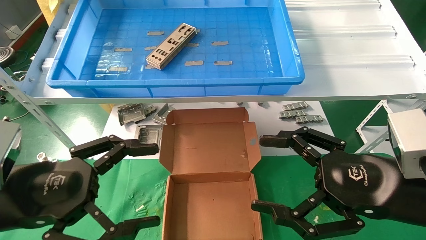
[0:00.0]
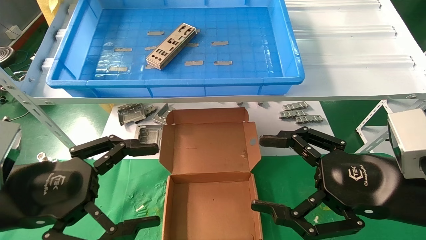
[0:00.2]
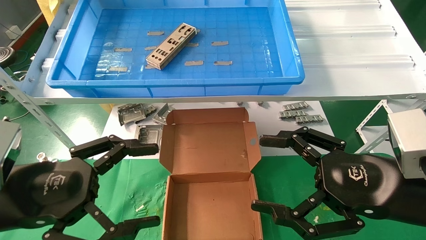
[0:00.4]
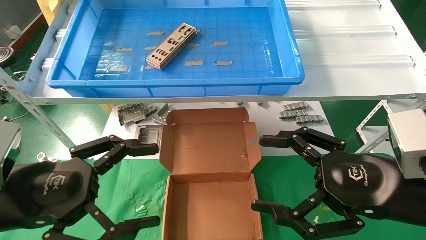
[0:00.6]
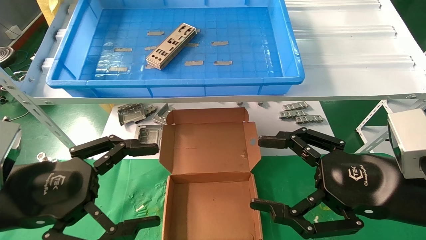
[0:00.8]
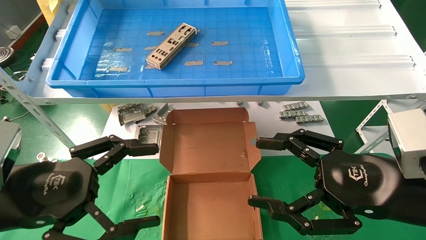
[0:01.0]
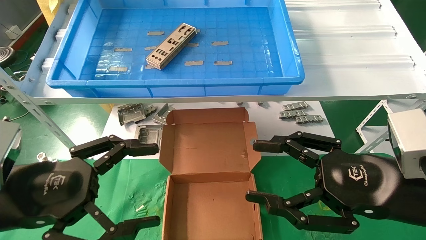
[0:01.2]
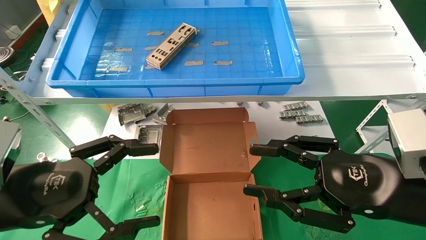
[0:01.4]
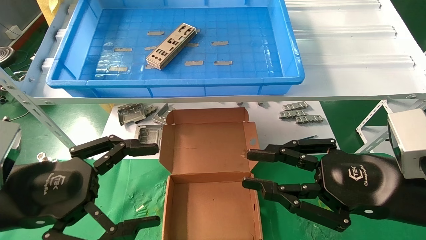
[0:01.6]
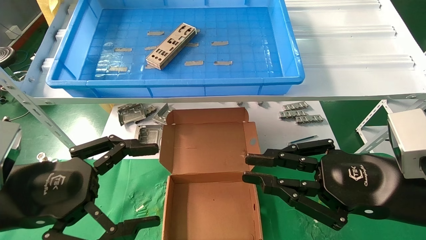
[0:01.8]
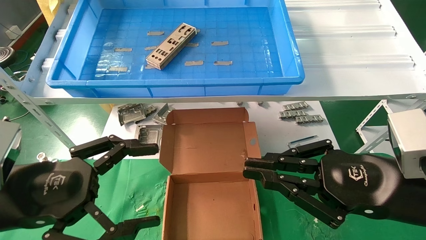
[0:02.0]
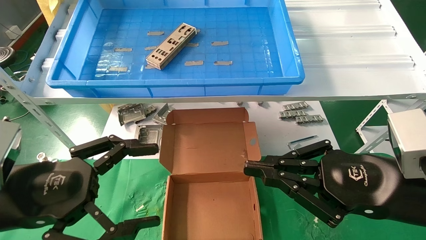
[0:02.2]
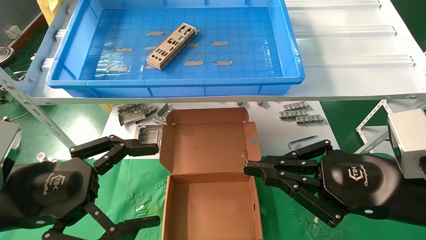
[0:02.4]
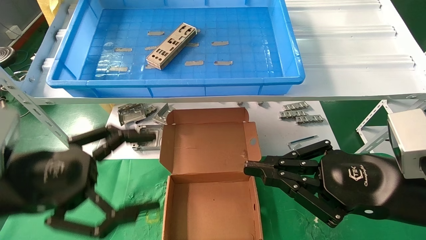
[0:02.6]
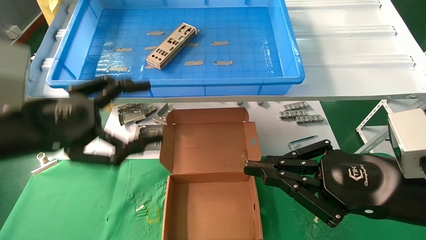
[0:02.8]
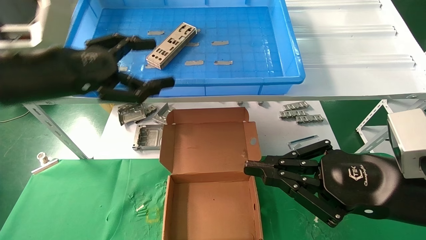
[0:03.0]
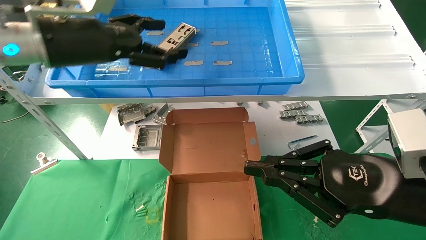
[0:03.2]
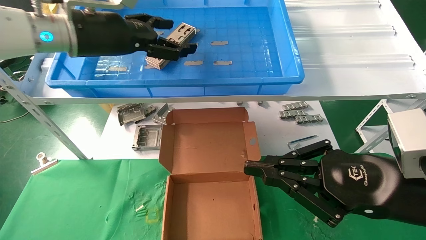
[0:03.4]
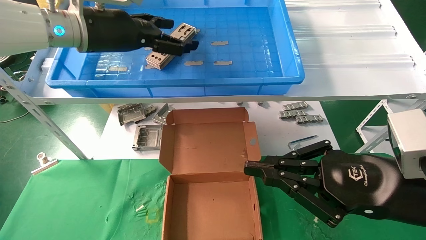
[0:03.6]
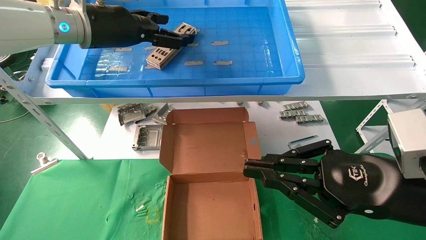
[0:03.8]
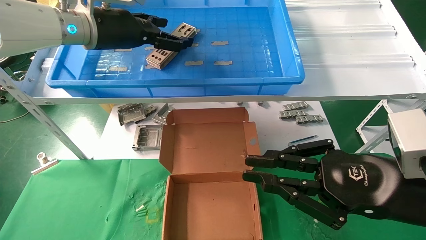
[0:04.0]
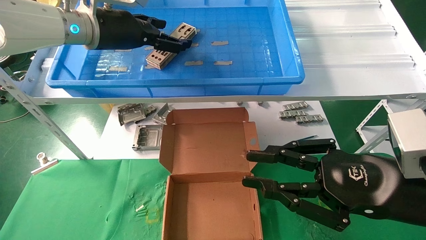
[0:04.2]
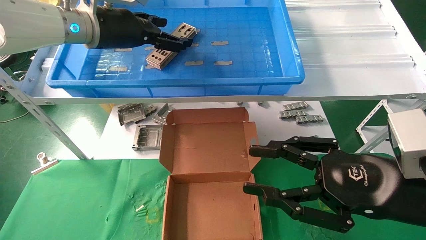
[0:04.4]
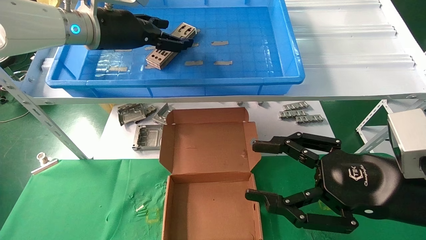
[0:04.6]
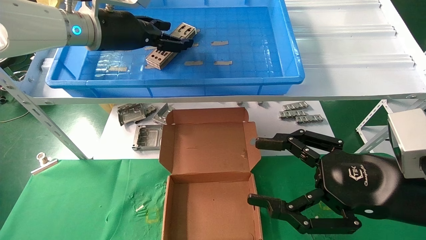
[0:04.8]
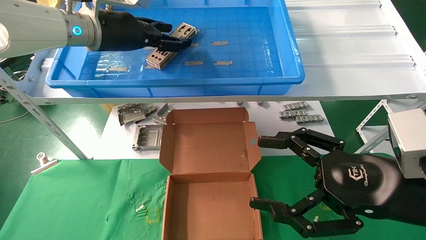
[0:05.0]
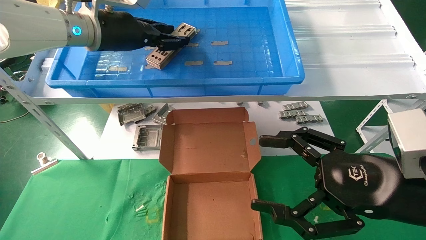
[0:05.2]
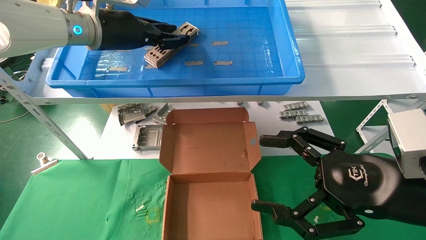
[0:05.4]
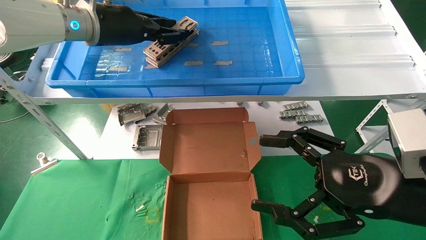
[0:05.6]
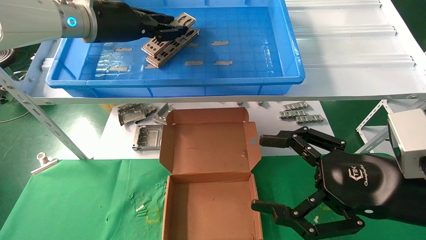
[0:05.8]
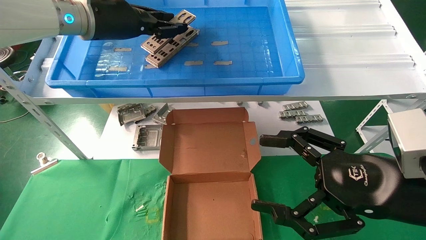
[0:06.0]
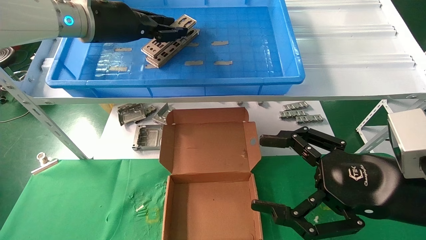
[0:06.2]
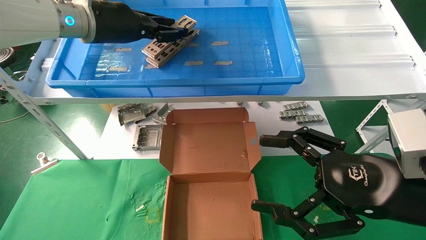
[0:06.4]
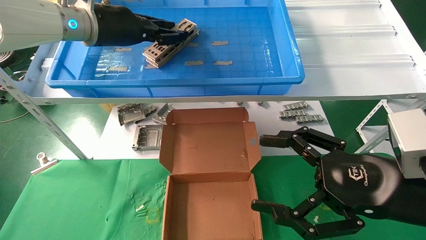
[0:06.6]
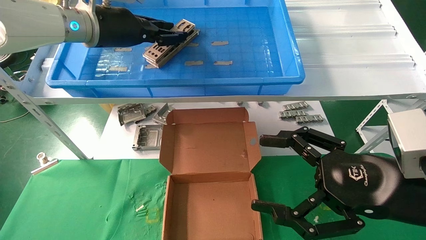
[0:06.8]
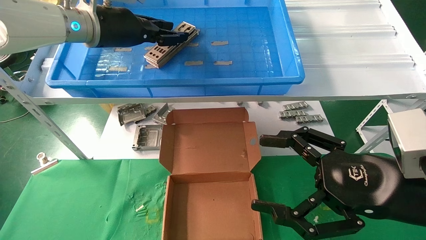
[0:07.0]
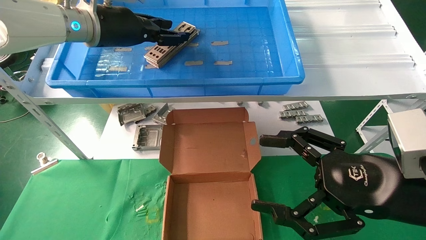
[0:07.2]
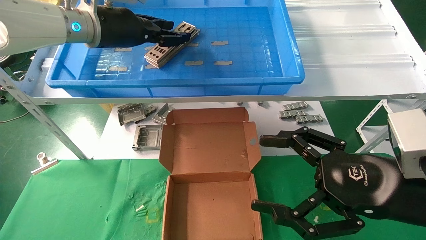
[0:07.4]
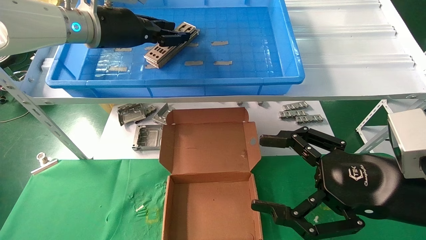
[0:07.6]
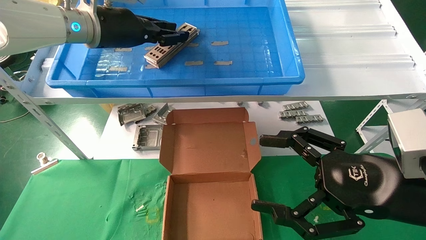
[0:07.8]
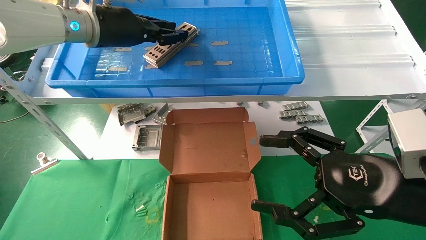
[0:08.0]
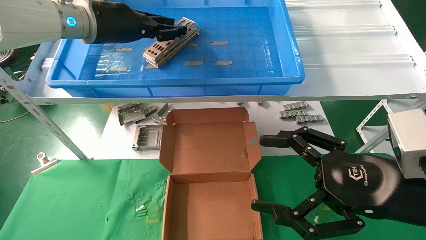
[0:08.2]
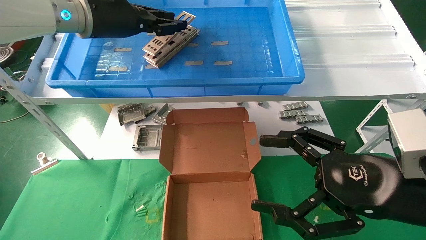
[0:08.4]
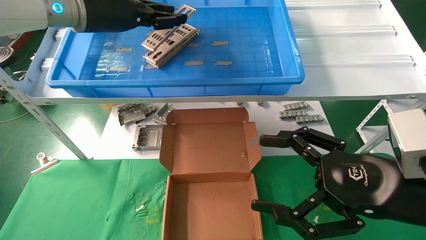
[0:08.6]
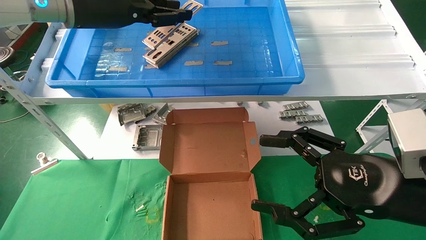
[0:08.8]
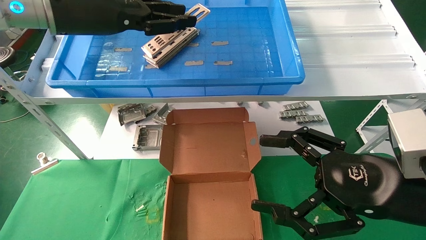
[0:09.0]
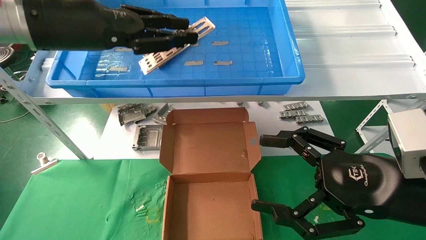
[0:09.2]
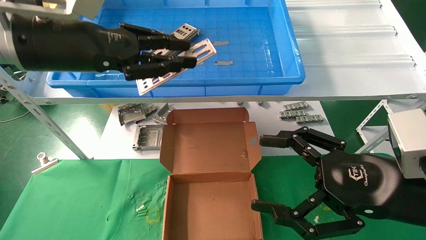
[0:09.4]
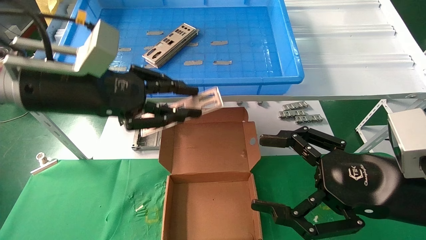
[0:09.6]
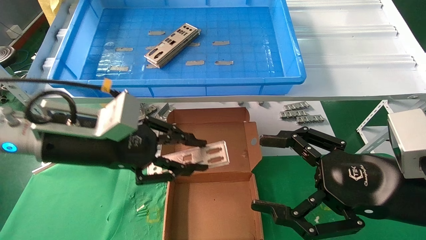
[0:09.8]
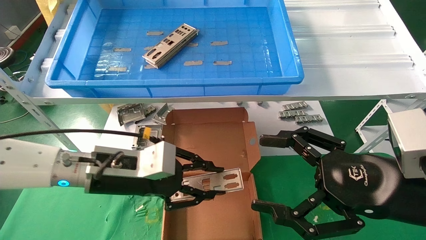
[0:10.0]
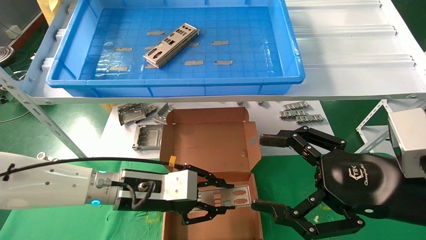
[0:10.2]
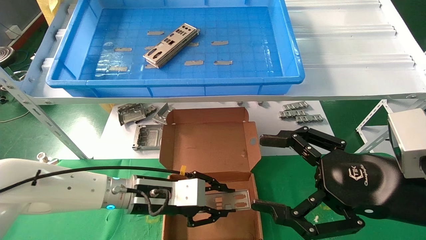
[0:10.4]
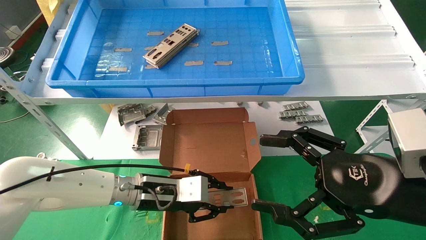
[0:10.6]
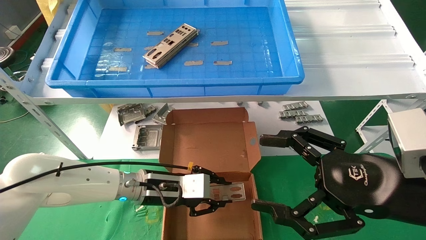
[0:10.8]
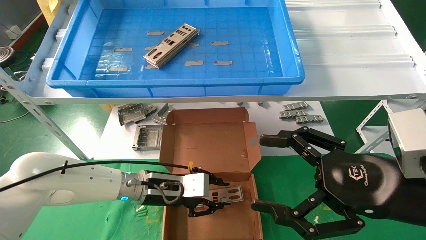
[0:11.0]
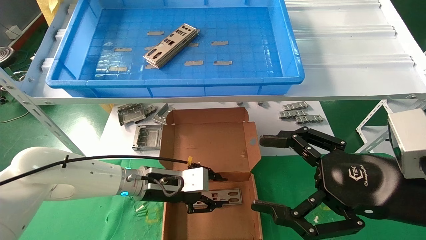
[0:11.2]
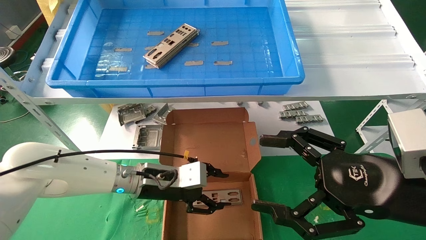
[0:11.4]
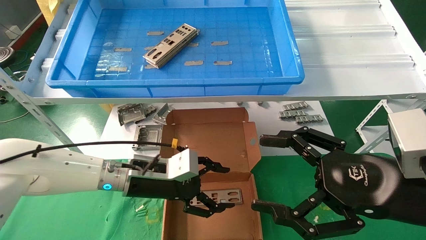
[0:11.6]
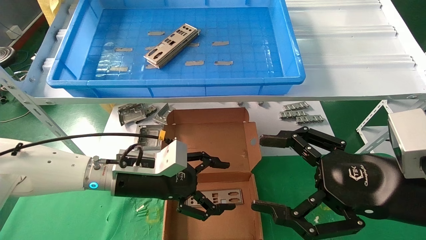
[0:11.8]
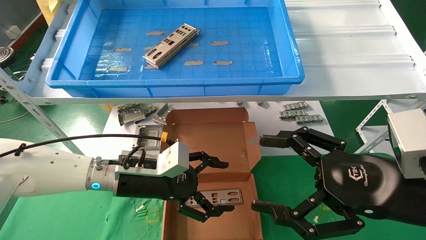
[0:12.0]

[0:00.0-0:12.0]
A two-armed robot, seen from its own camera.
Task of the whole recording: pick up the parts on the tray and put them in the cardboard box.
Step, 0:02.8 to 0:08.2: Pick up the IO bracket from the container box.
Step, 0:08.4 to 0:11.4: Place the IO bracket into the ingredient slot.
0:00.0 to 0:01.6: The right gripper closes.
0:01.6 to 0:03.0: The left gripper shifts roughly 15 cm upward and forward. Meanwhile the right gripper closes up.
0:03.0 to 0:04.4: The left gripper shifts some 15 cm forward, upward and to the right.
0:04.4 to 0:06.0: The right gripper opens, while the left gripper closes.
0:06.0 to 0:07.6: Both grippers stay about where they are.
0:07.6 to 0:09.0: The left gripper heads backward, covering approximately 5 cm.
0:09.0 to 0:10.4: The left gripper moves downward, some 30 cm.
0:10.4 to 0:12.0: The left gripper opens.

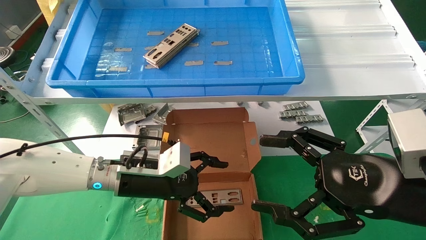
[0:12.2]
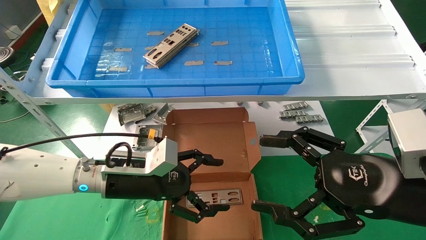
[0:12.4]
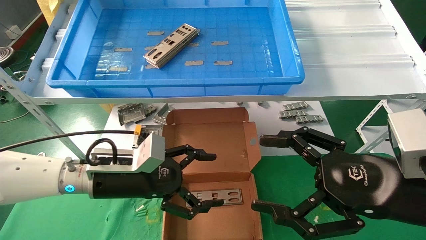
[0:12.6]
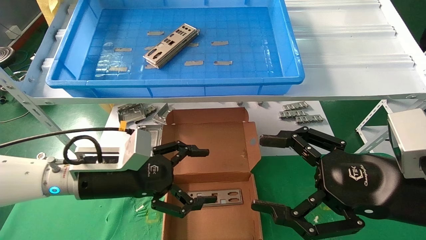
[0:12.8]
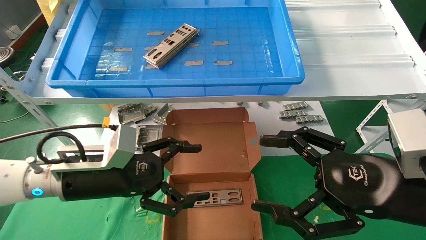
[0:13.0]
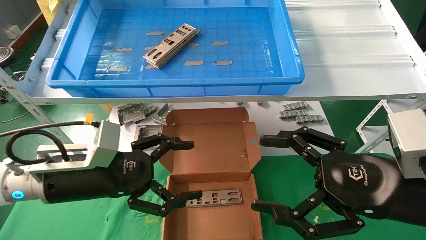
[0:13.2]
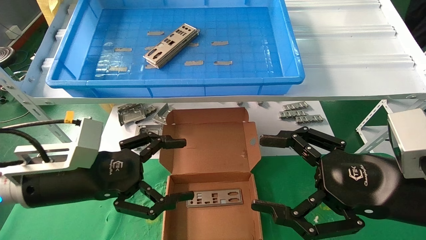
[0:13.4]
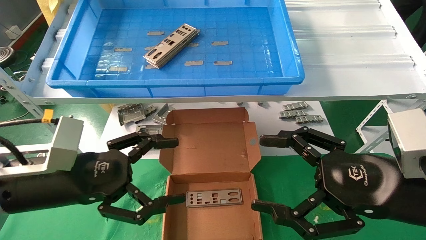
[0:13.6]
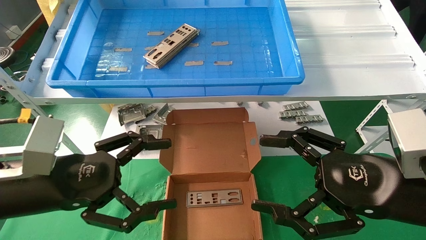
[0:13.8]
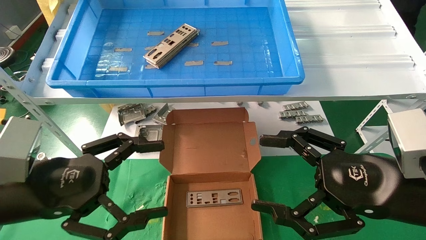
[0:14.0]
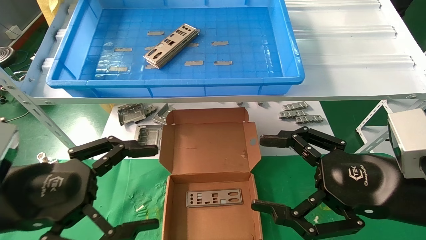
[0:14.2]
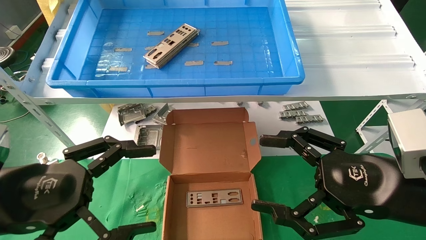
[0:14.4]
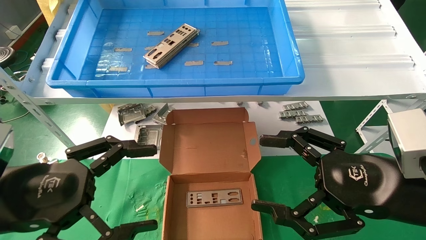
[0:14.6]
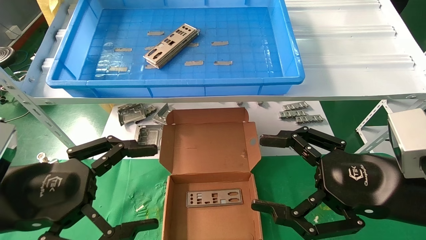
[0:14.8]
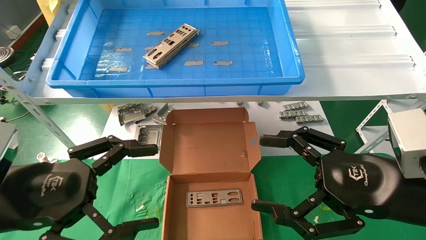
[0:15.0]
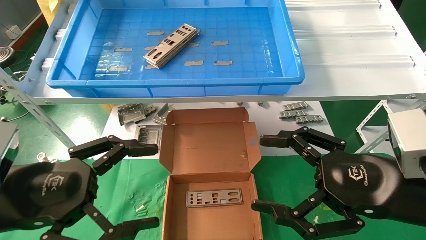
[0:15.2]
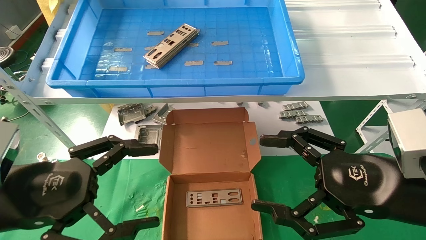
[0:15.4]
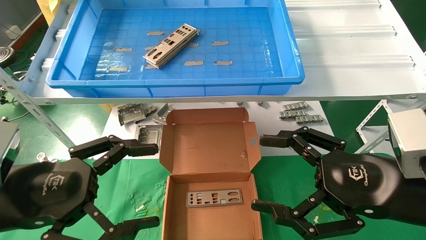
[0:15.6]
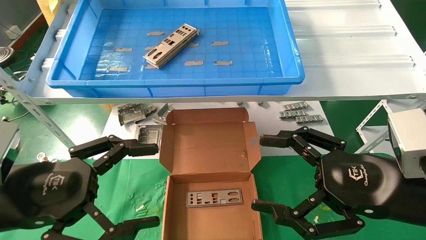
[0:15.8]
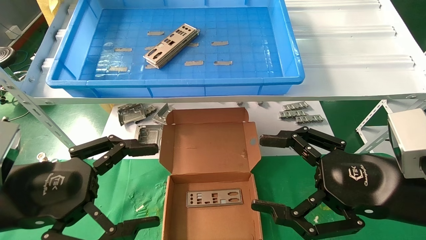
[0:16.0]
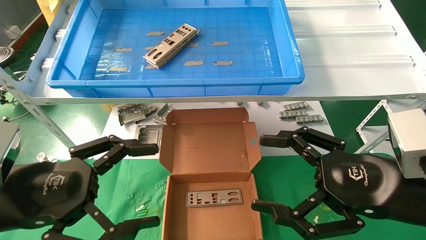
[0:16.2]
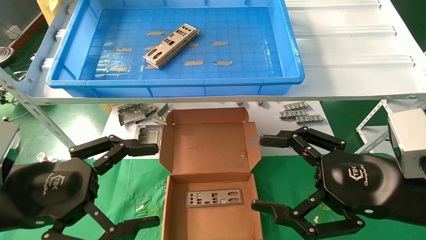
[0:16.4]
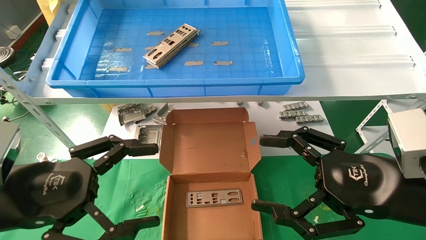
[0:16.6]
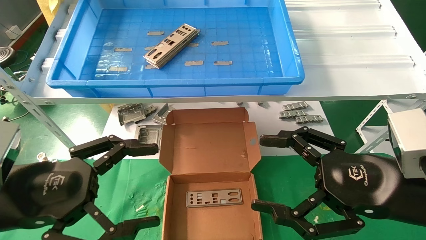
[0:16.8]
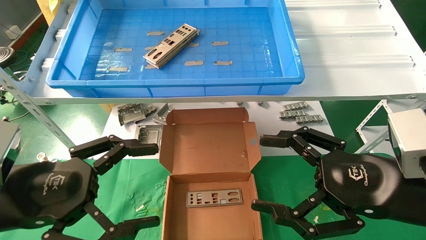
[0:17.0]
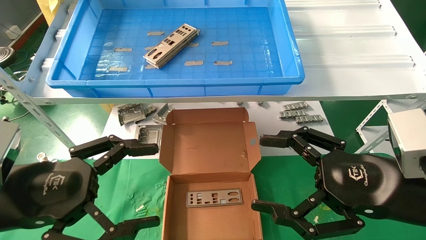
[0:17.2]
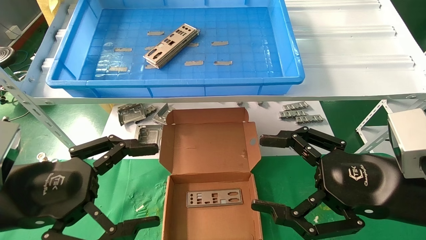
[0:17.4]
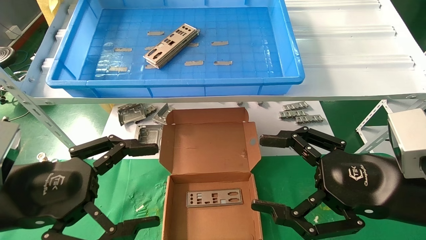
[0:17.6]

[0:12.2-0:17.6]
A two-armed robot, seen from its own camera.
Task of the whole recording: pick up the parts on the tray and put them in the cardboard box.
0:12.2 to 0:13.6: The left gripper heads backward and to the left, covering some 15 cm.
0:13.6 to 0:15.0: The left gripper is displaced backward by roughly 5 cm.
0:15.0 to 0:17.6: The two grippers keep their place.
